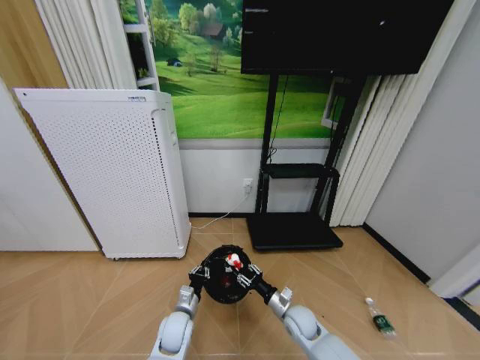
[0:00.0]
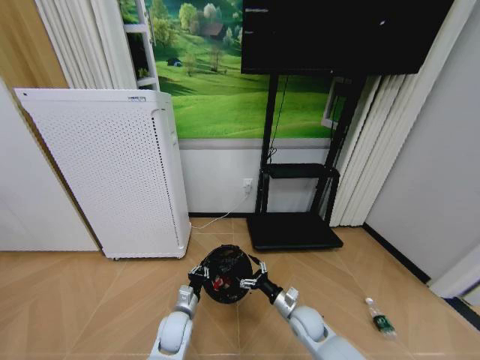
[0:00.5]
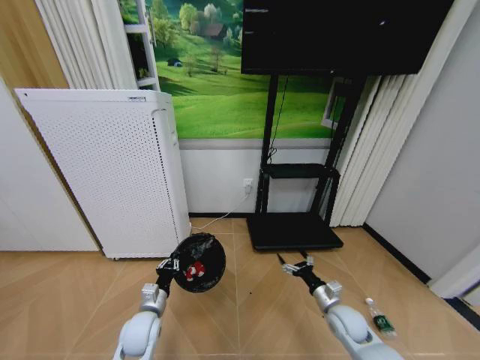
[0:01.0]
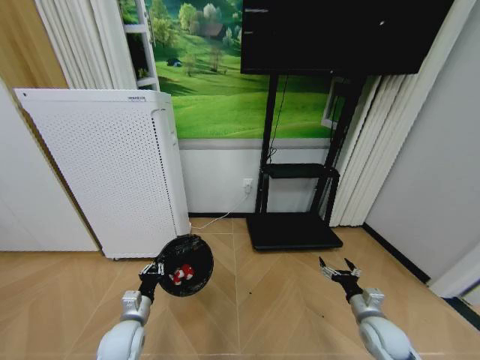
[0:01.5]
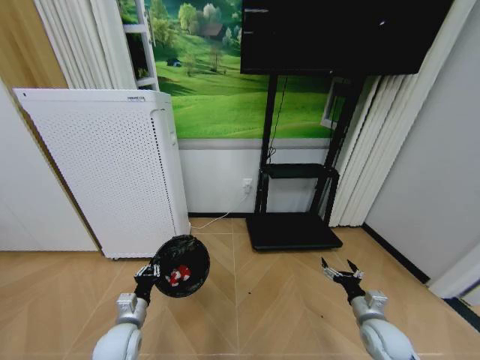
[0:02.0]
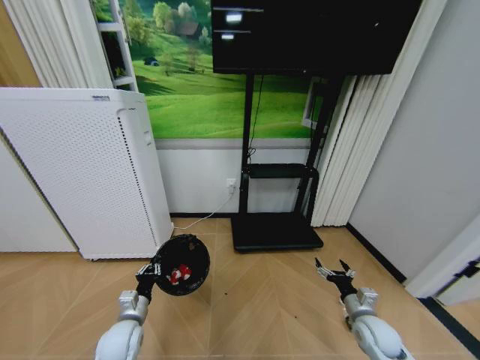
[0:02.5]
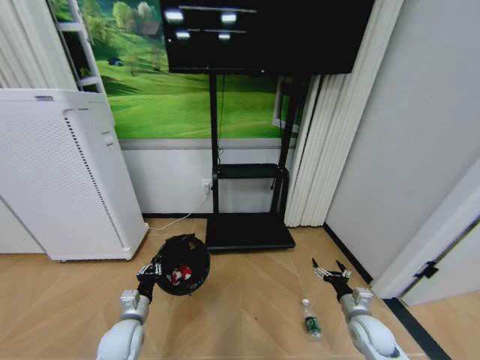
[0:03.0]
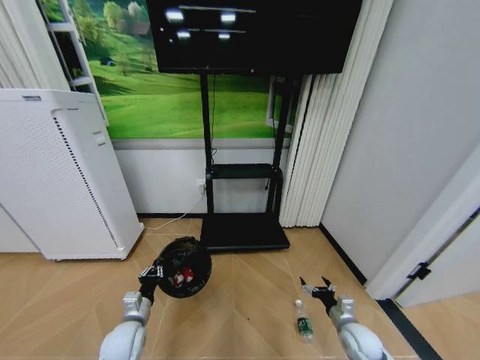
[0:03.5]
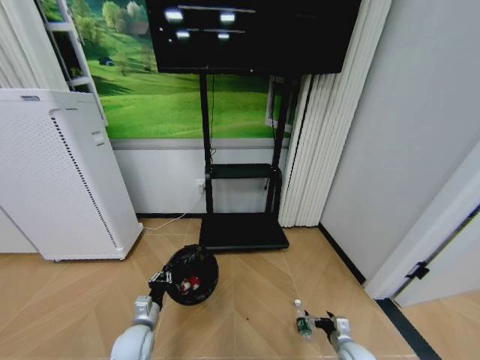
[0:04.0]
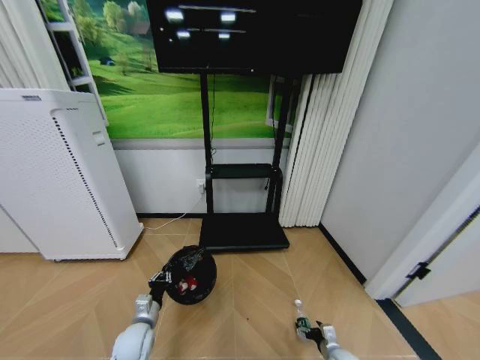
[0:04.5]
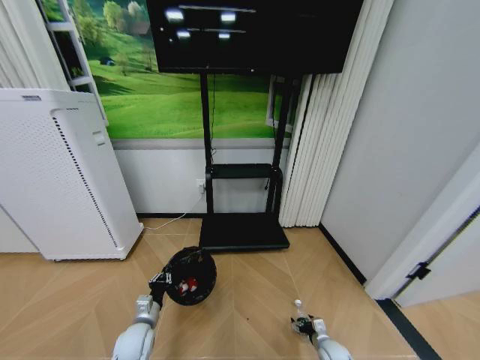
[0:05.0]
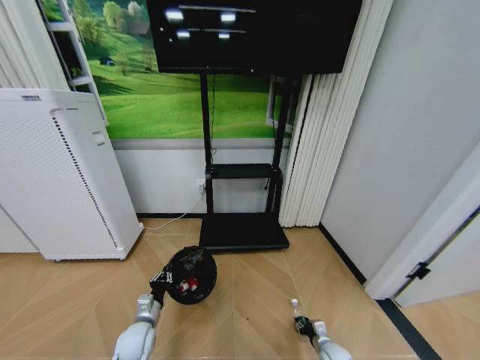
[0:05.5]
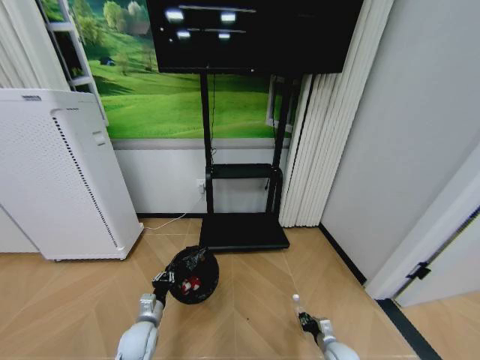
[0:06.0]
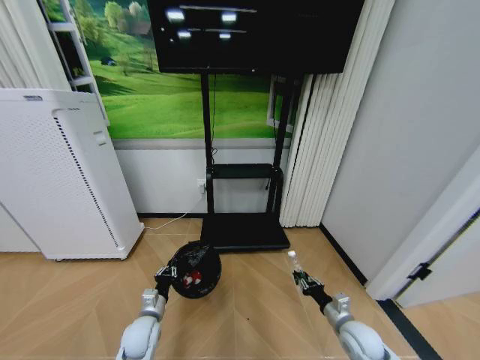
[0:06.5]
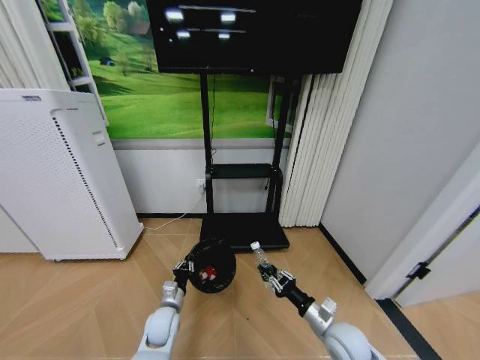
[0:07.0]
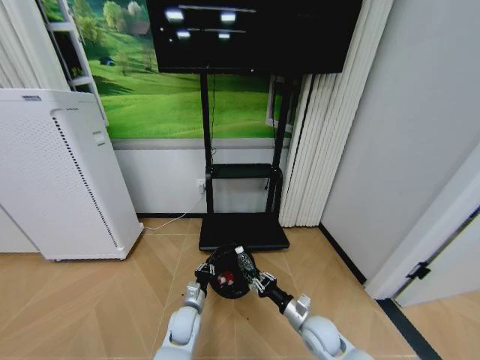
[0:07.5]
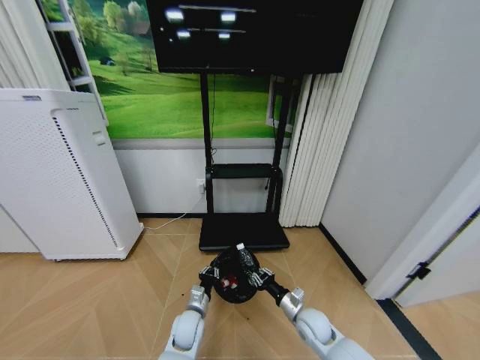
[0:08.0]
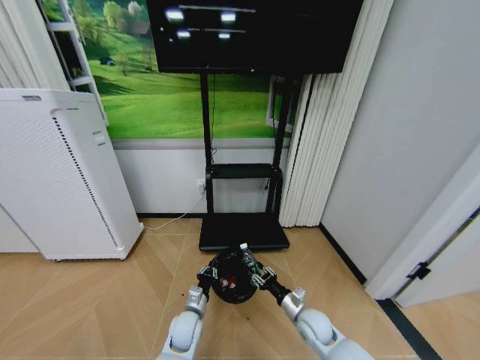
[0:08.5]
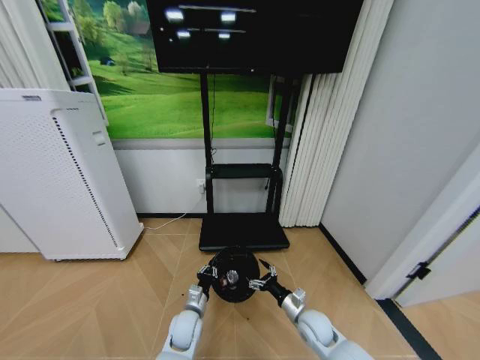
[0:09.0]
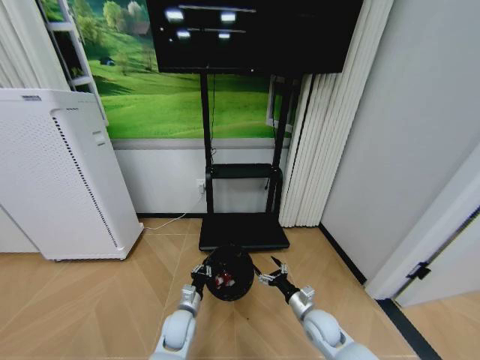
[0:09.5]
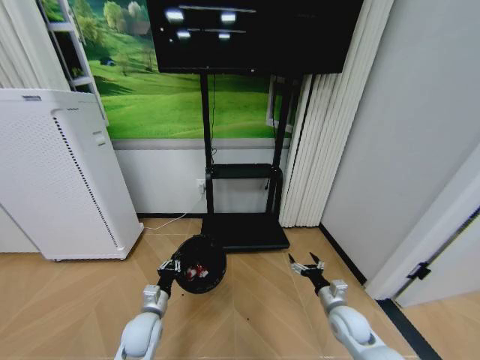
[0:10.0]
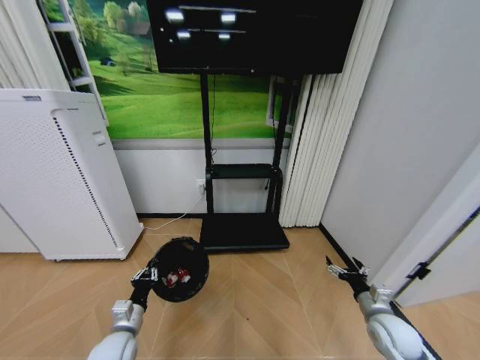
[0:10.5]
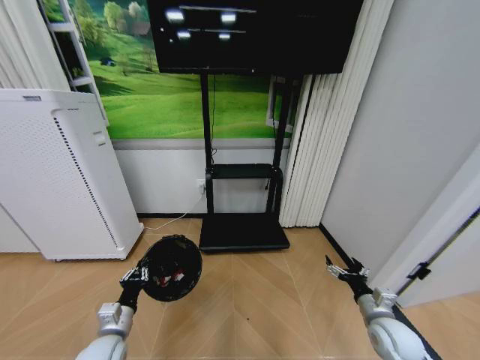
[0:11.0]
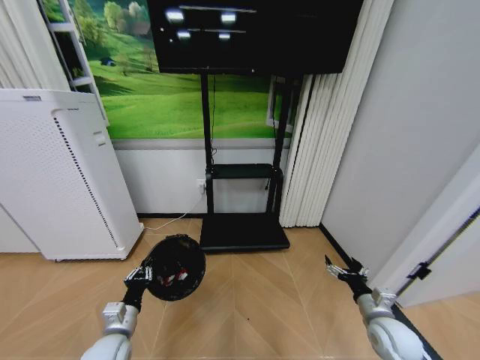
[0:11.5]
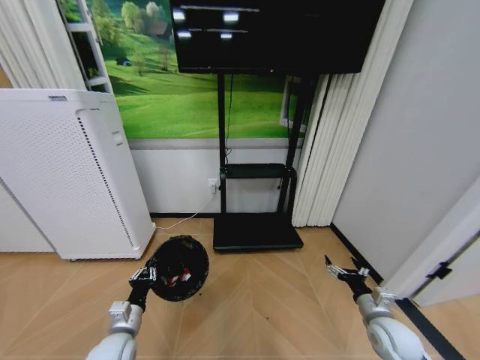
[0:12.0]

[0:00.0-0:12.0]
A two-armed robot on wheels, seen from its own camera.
Task of the whole recording: Pick up the trash bin and place the garbage on the floor into it.
0:00.0 to 0:02.0: The right gripper goes some 20 cm to the right, and opens its fingers, while the left gripper goes some 15 cm to the left and upward.
0:02.0 to 0:04.0: The right gripper heads downward, covering roughly 15 cm.
0:04.0 to 0:06.0: The right gripper closes its fingers.
0:06.0 to 0:08.0: The left gripper heads to the right, covering about 15 cm; the right gripper is displaced upward and to the left by about 20 cm.
0:08.0 to 0:10.0: The left gripper shifts approximately 15 cm to the left and upward, while the right gripper shifts some 10 cm to the right, and opens up.
0:10.0 to 0:12.0: The left gripper moves backward, approximately 5 cm; the right gripper heads to the right, covering roughly 5 cm.

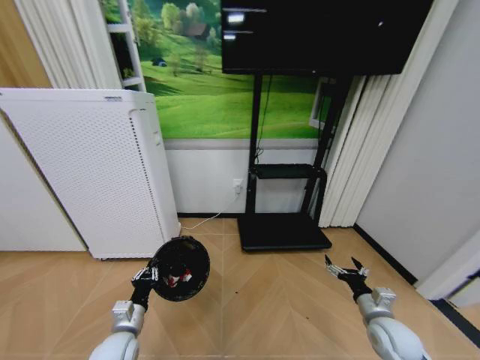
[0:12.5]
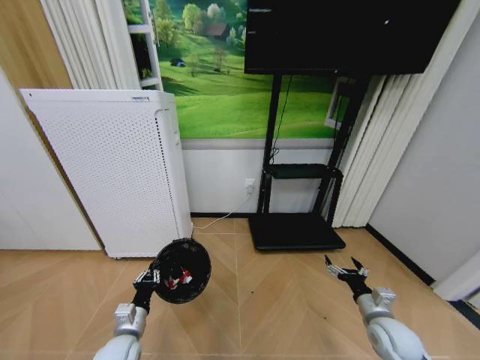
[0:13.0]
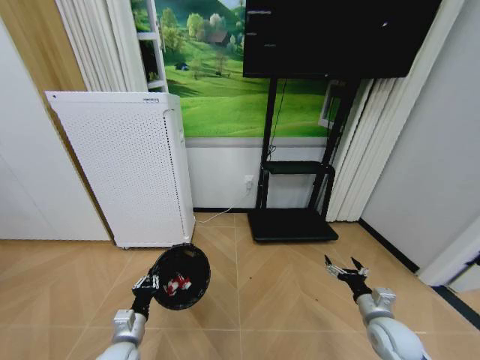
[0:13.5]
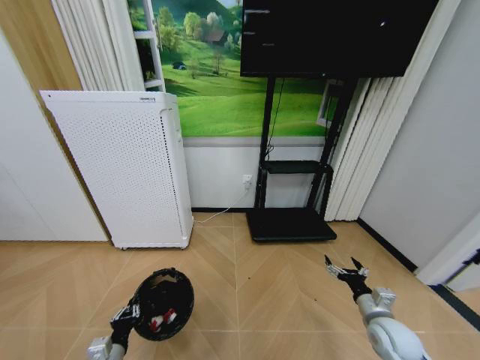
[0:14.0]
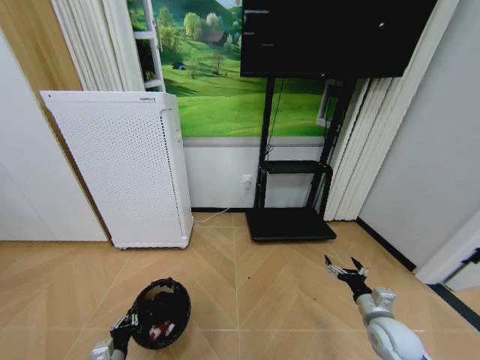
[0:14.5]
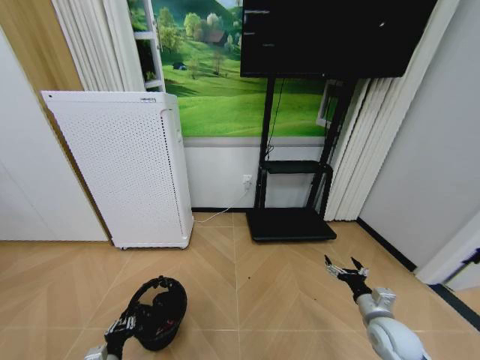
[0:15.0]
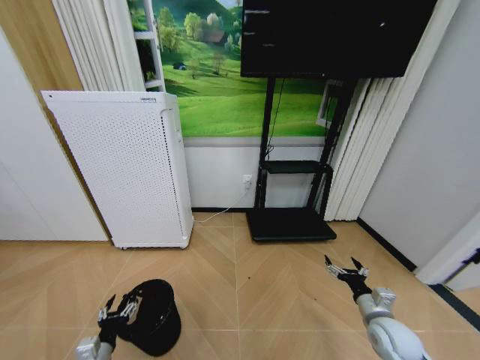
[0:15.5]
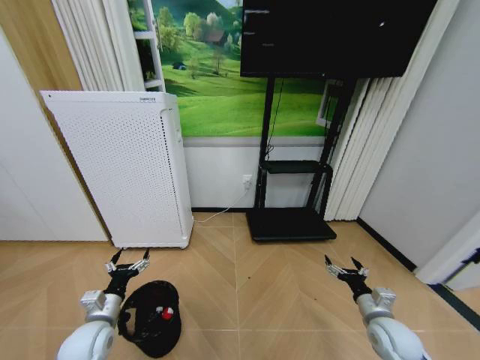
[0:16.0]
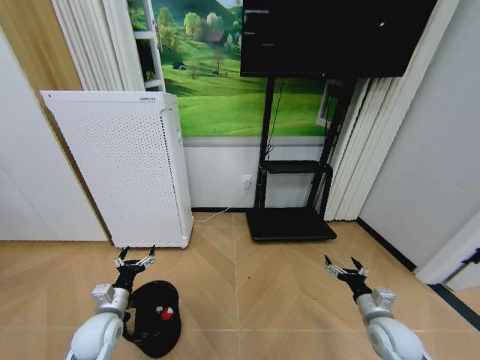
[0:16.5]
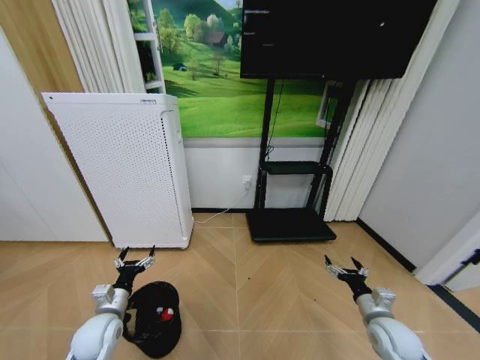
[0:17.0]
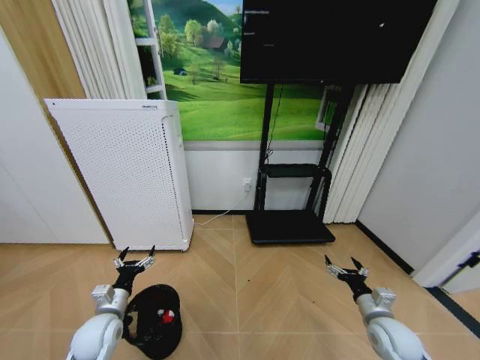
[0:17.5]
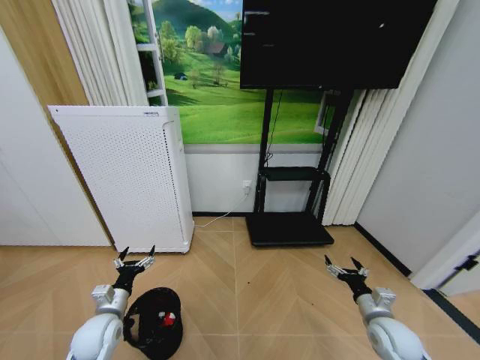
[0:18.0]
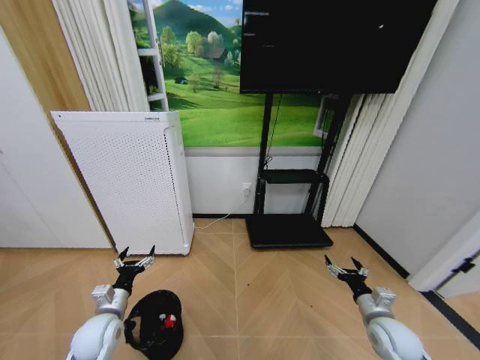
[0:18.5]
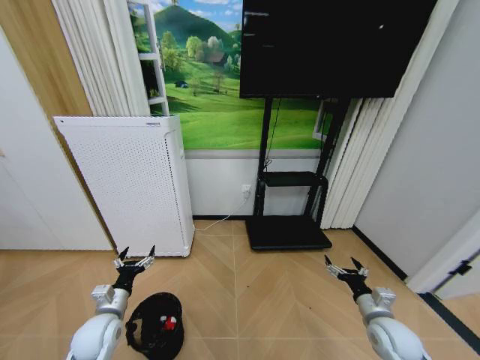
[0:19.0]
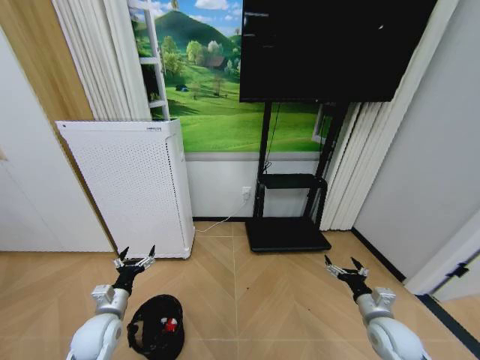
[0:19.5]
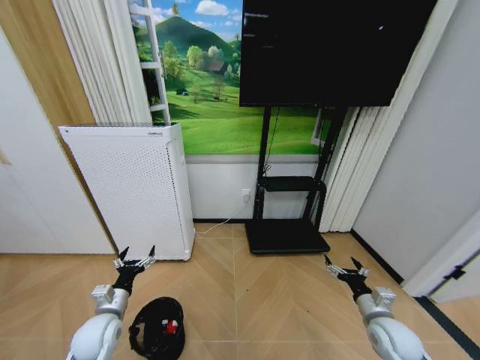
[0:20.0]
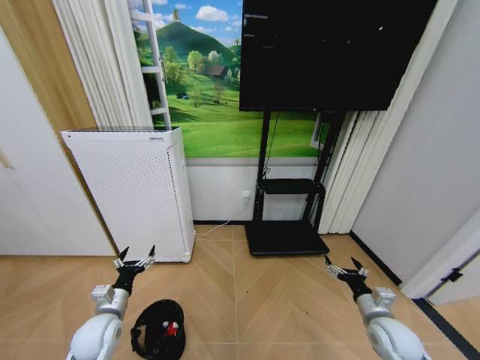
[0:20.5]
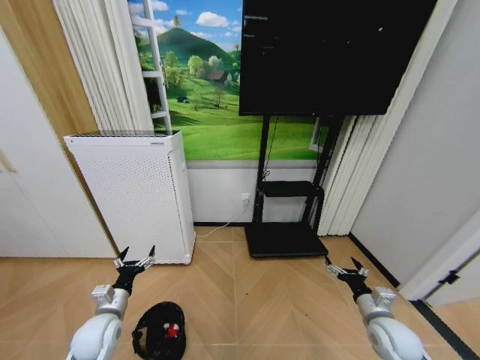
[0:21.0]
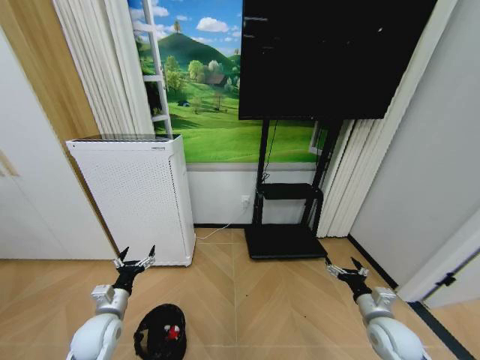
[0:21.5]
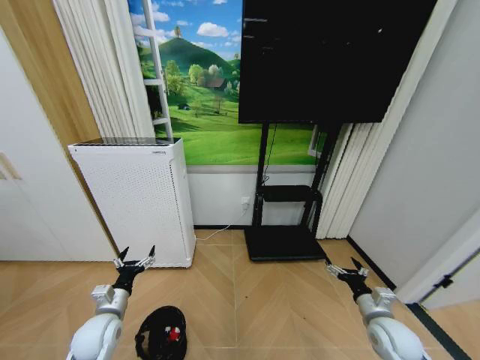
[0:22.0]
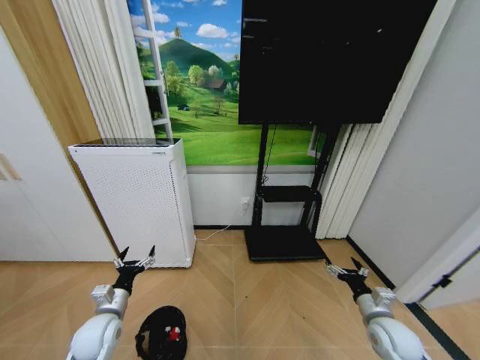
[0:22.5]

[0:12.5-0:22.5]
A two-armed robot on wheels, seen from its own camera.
Task of the whole recording: Pick up the trash bin and place the garbage on the floor into it.
0:12.5 to 0:14.5: The left gripper travels downward and backward by roughly 10 cm.
0:14.5 to 0:16.5: The left gripper goes approximately 15 cm forward and upward, and opens up.
0:16.5 to 0:22.5: Both grippers stay about where they are.

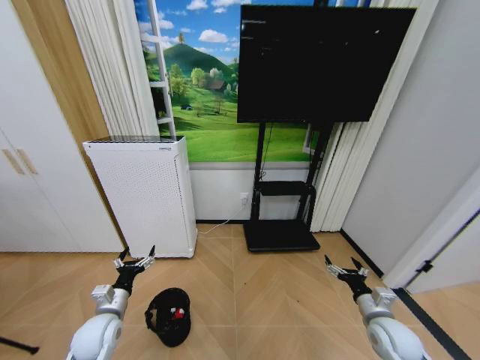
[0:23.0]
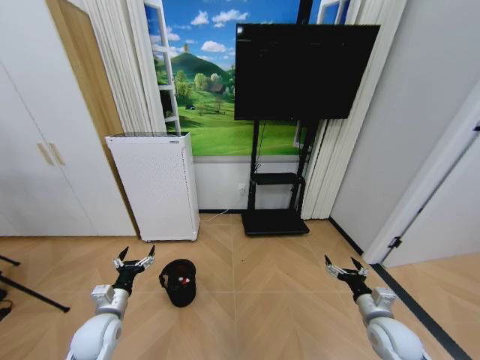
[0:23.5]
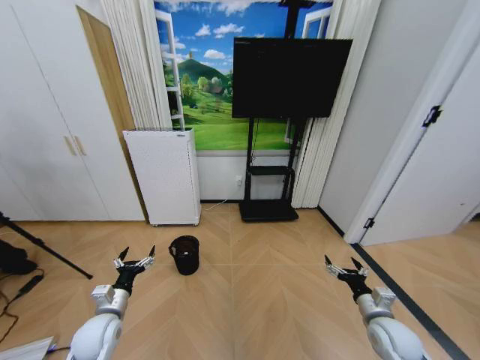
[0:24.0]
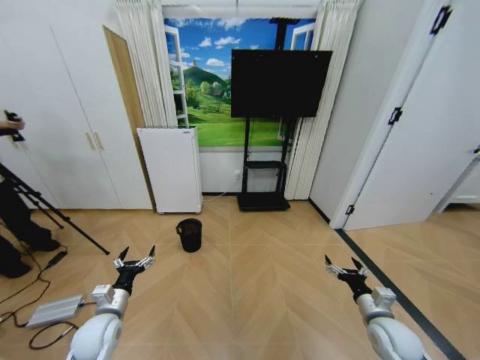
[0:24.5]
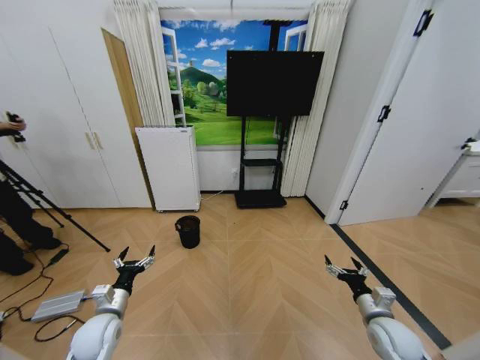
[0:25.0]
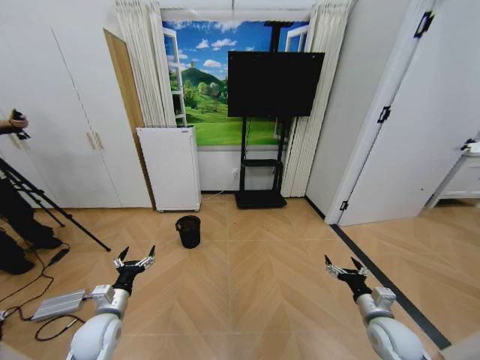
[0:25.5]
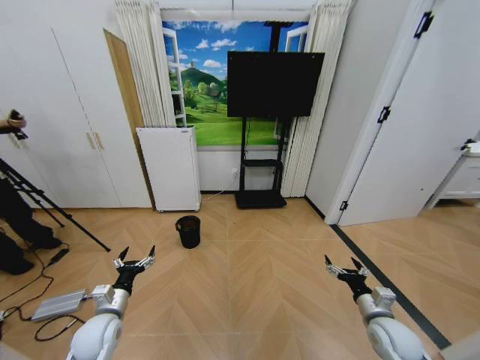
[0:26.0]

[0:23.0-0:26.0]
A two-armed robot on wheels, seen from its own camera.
Task of the whole recording: Pick up the trash bin and place the garbage on the floor into it.
0:24.5 to 0:26.0: Both grippers stay about where they are.
